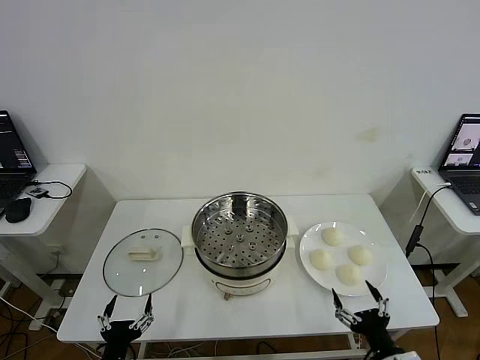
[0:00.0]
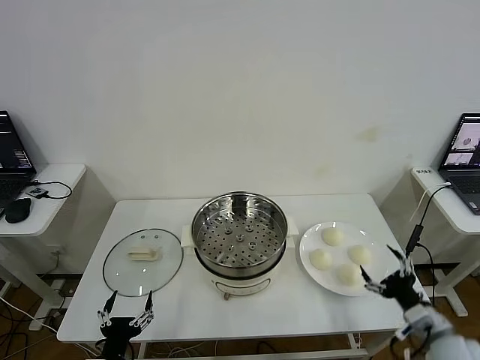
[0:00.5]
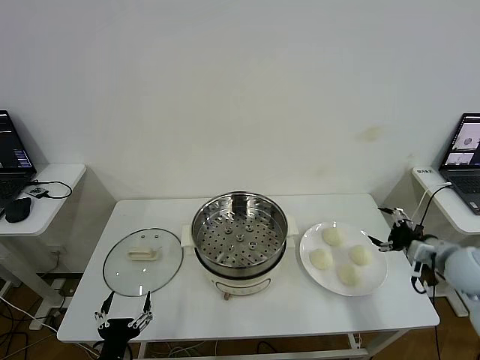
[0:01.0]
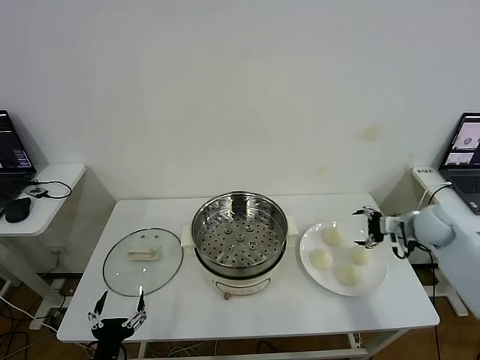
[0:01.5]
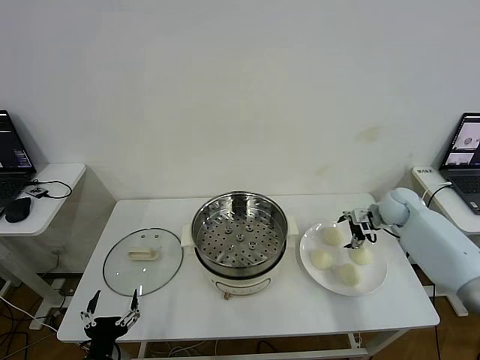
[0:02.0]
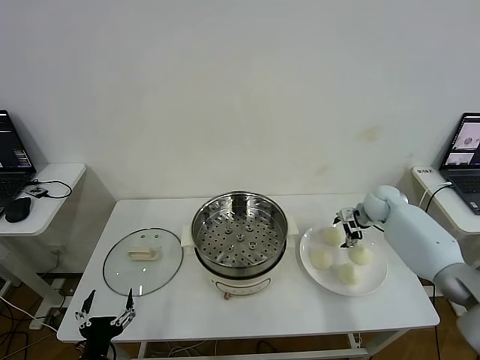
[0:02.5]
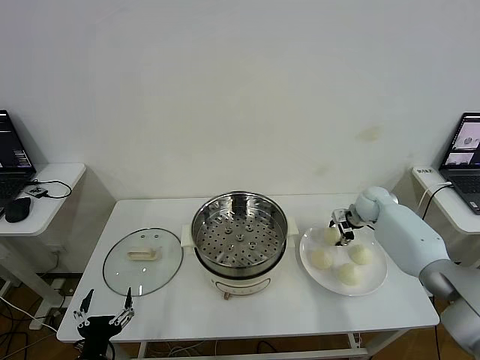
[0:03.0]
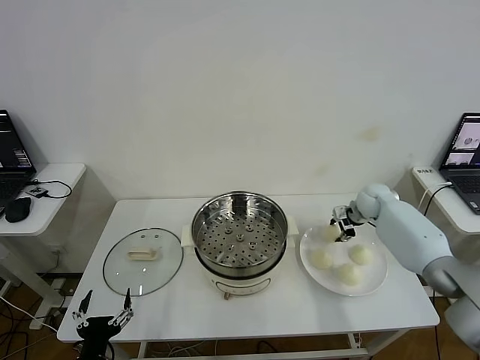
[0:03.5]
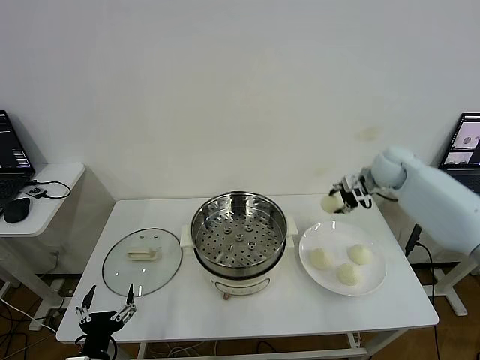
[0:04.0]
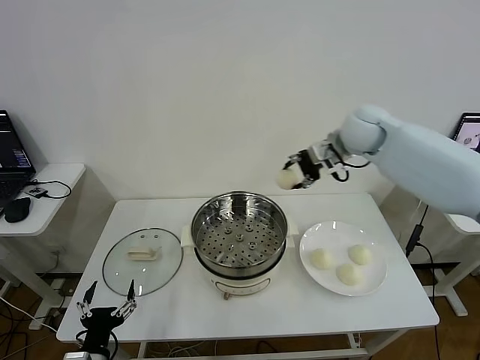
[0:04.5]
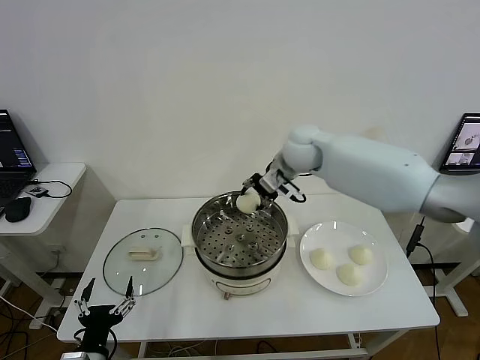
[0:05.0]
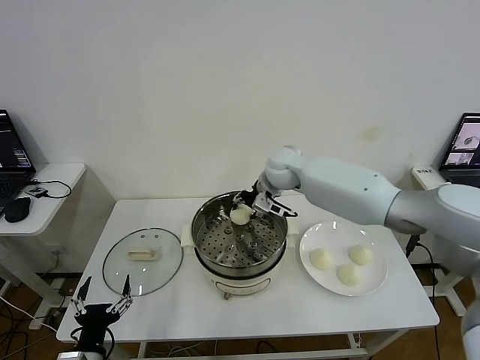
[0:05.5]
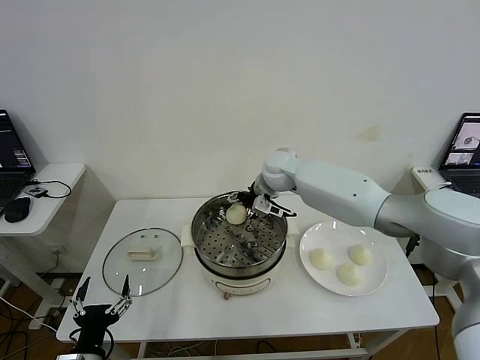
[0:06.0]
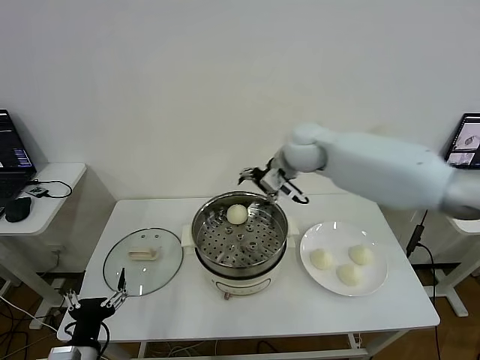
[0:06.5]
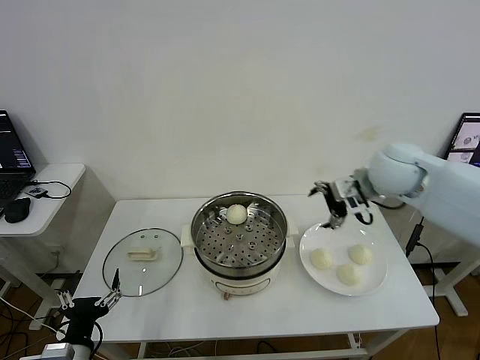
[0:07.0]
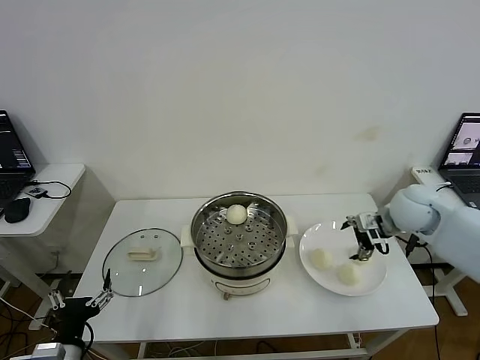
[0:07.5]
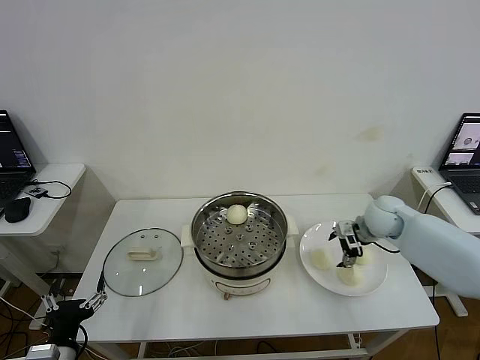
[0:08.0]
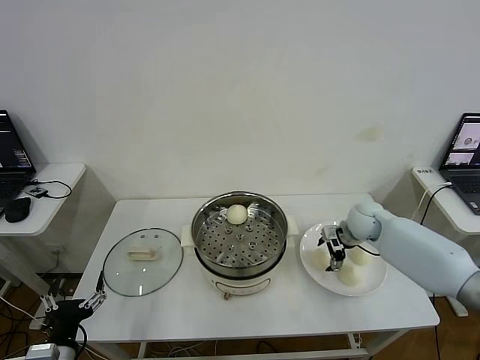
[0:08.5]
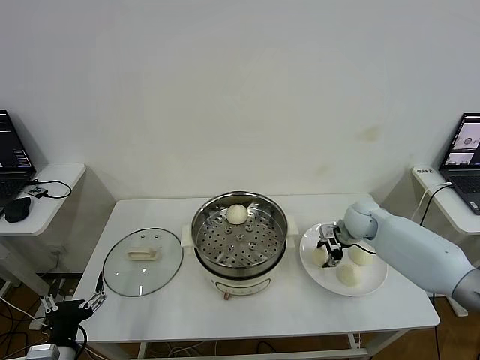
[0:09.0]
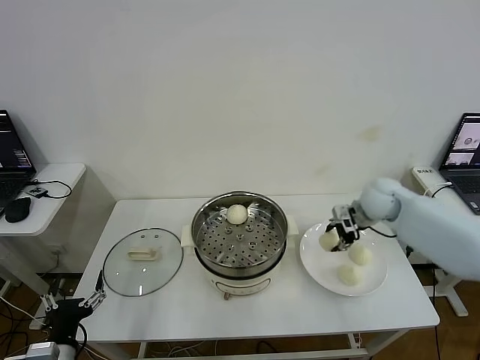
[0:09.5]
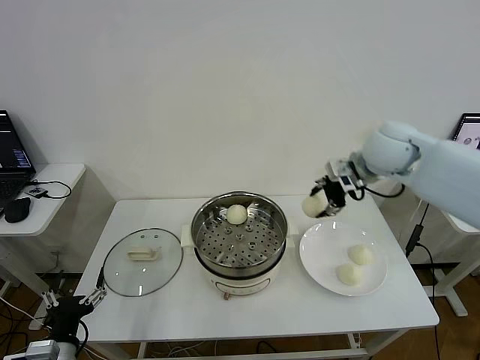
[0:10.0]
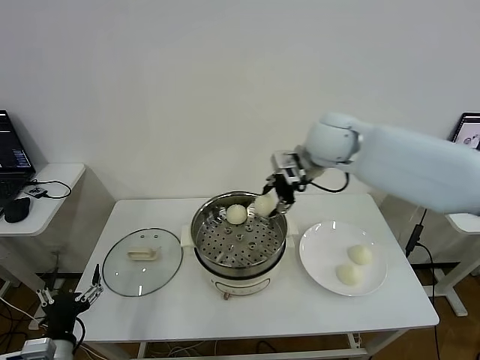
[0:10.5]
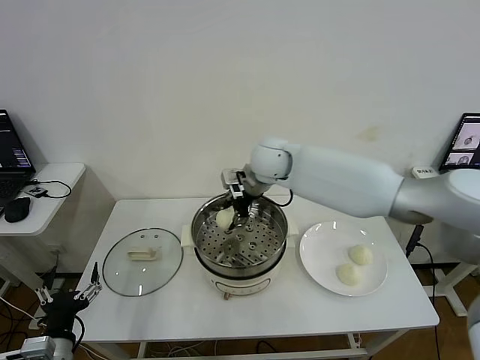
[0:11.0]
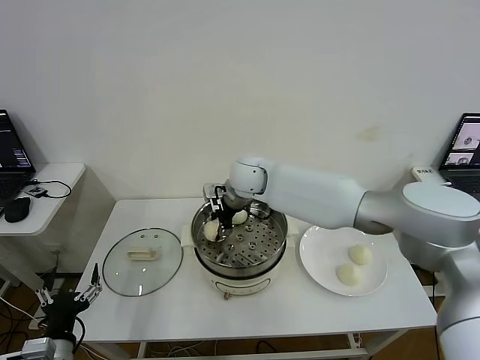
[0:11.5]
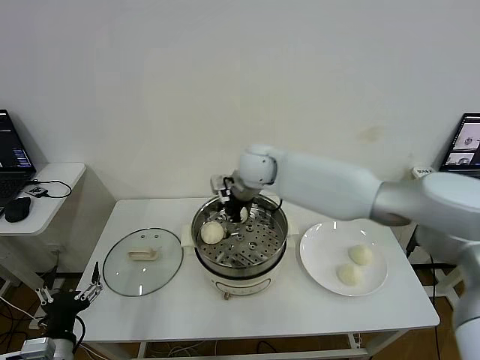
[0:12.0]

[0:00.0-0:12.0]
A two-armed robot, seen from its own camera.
Step, 0:00.0 to 0:03.0: Grasp the baozi in the plate with right gripper.
Step, 0:03.5 to 0:05.5: Place the baozi on the steamer with right gripper.
Step, 0:06.0 to 0:08.5: Grasp the baozi in the plate with right gripper.
Step, 0:09.0 to 0:11.5: Place the baozi on the steamer with right gripper.
0:02.0 to 0:04.0: The right gripper shifts some 15 cm upward, and closes.
0:04.0 to 0:06.0: The right gripper moves to the left, roughly 25 cm, and opens its fingers.
0:06.0 to 0:08.0: The right gripper heads to the right, covering approximately 25 cm.
0:08.0 to 0:10.0: The right gripper moves upward, some 20 cm, and closes.
0:10.0 to 0:12.0: The right gripper moves to the left, some 20 cm, and opens.

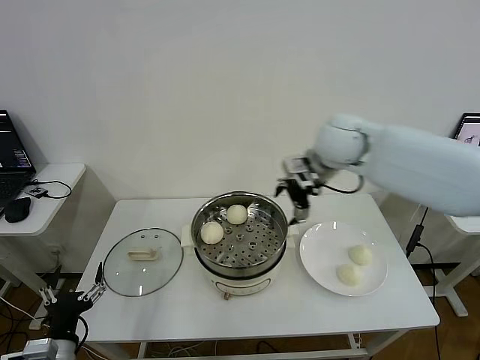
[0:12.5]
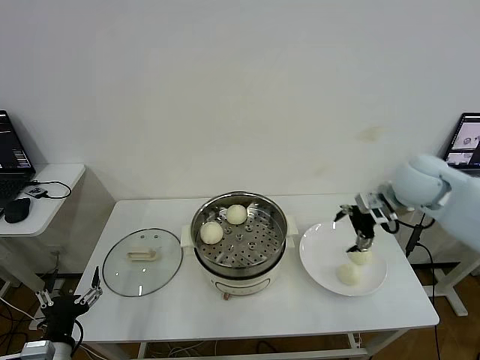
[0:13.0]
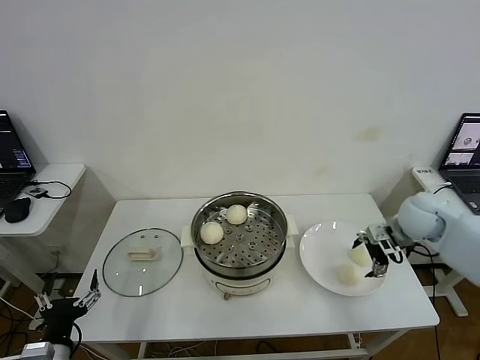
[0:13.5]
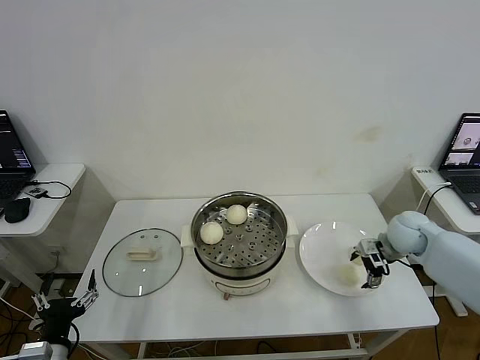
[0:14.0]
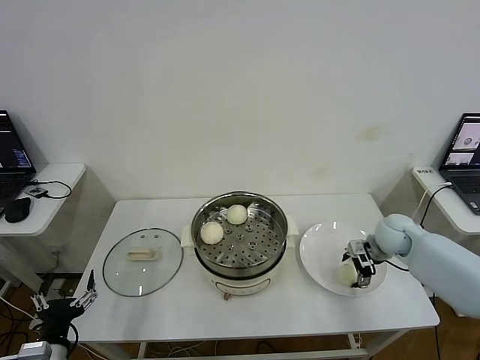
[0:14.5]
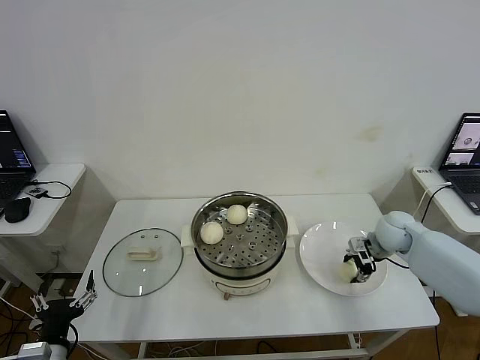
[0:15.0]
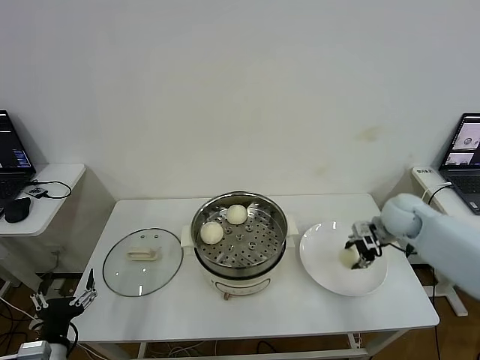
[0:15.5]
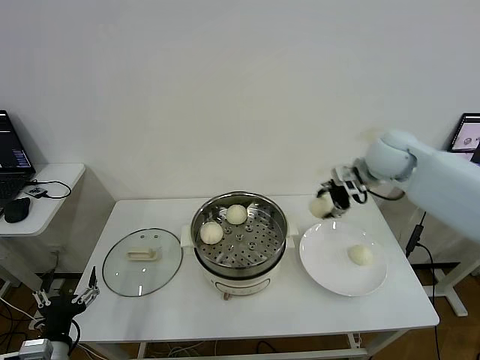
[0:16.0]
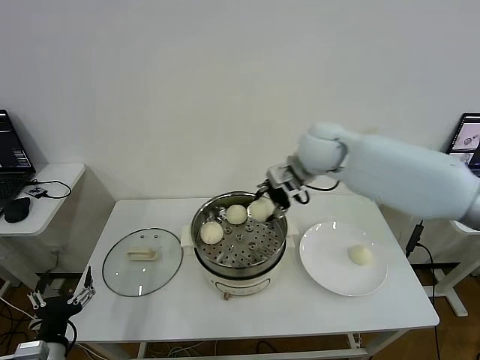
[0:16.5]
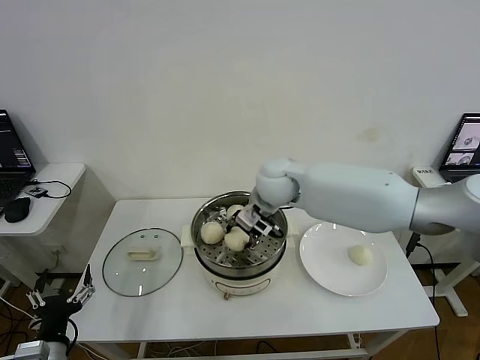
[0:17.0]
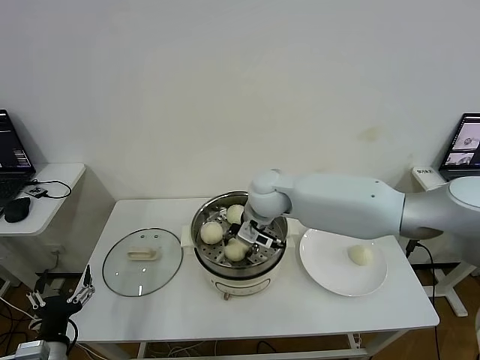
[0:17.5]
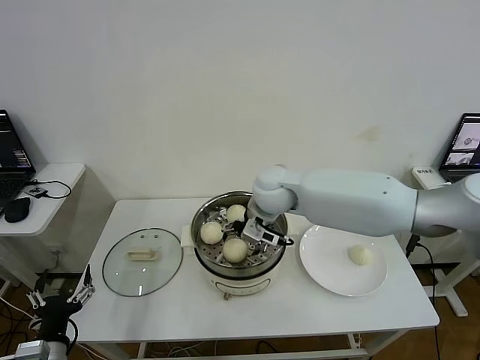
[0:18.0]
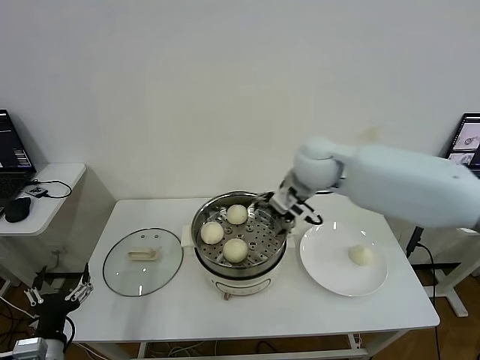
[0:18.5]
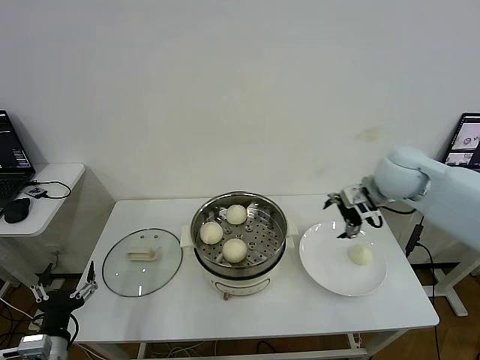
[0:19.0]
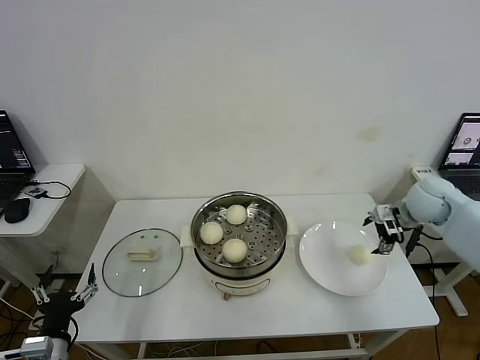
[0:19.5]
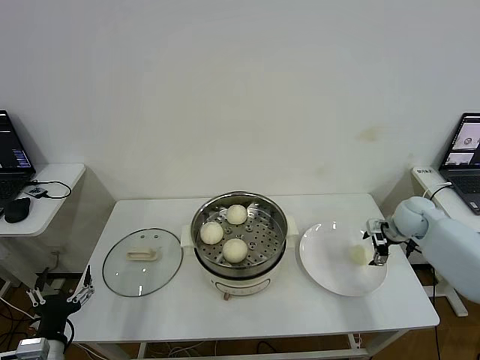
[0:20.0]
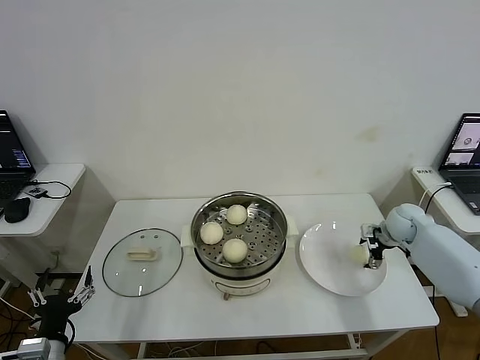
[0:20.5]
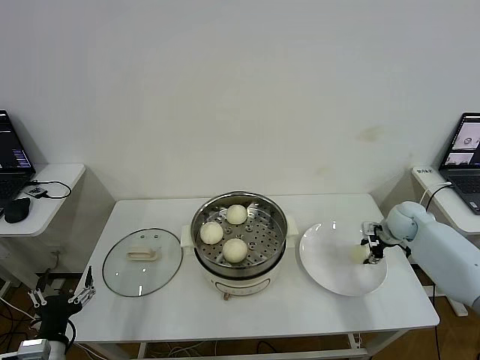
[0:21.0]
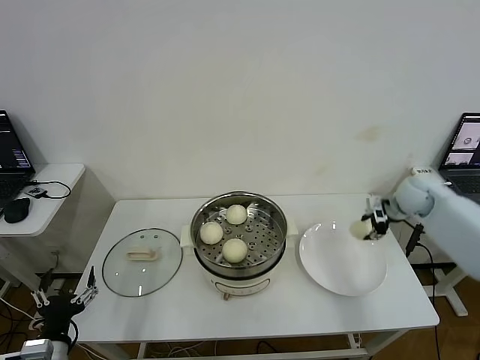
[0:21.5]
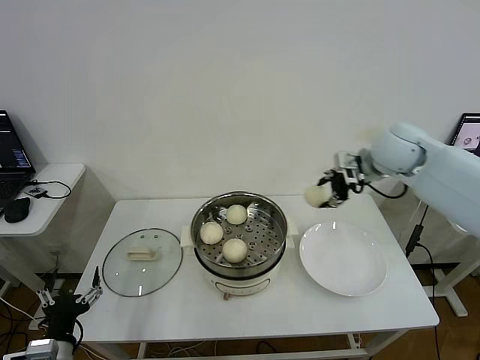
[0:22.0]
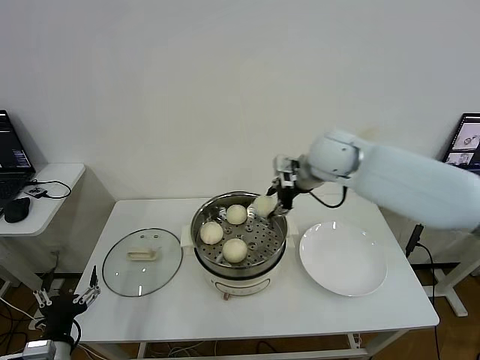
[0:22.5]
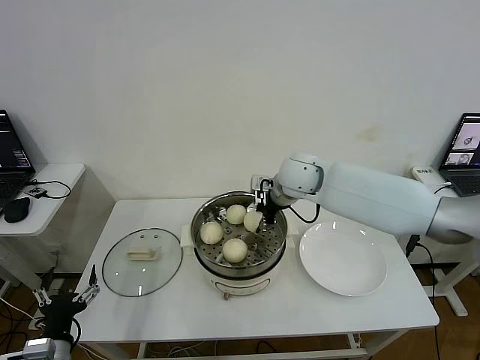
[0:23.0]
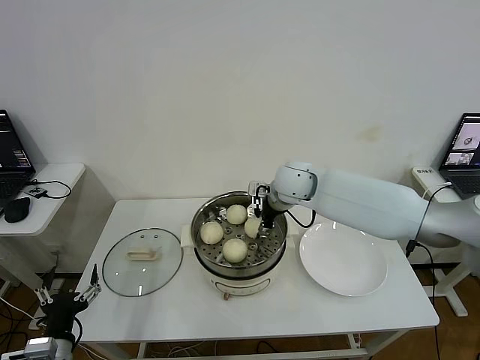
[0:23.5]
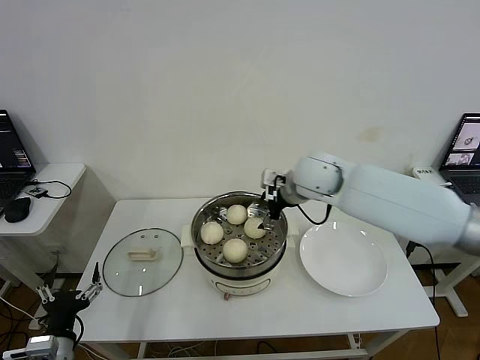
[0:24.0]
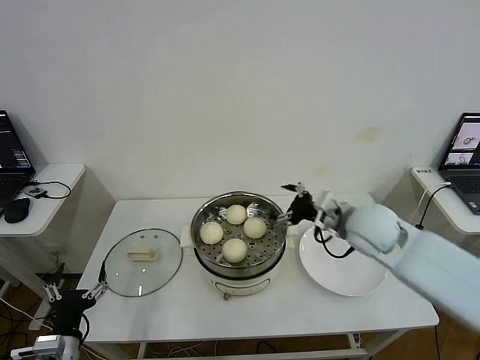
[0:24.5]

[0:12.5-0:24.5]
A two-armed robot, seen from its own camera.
Step, 0:12.5 to 0:14.5: Grasp the baozi in the plate with right gripper.
Step, 0:15.0 to 0:17.5: Place the baozi on the steamer with right gripper.
Step, 0:18.0 to 0:20.5: Grasp the baozi in the plate with right gripper.
Step, 0:21.0 to 0:23.5: Place the baozi on the steamer with right gripper.
0:12.5 to 0:14.5: The right gripper goes some 30 cm downward and to the right.
0:14.5 to 0:16.5: The right gripper travels to the left and upward by approximately 35 cm, and closes its fingers.
0:16.5 to 0:18.5: The right gripper travels to the left and back again, about 10 cm each way, and opens up.
0:18.5 to 0:20.5: The right gripper goes approximately 35 cm to the right and downward.
0:20.5 to 0:22.5: The right gripper shifts approximately 35 cm to the left and upward, and closes.
0:22.5 to 0:24.5: The right gripper shifts roughly 15 cm backward, downward and to the right, and opens.

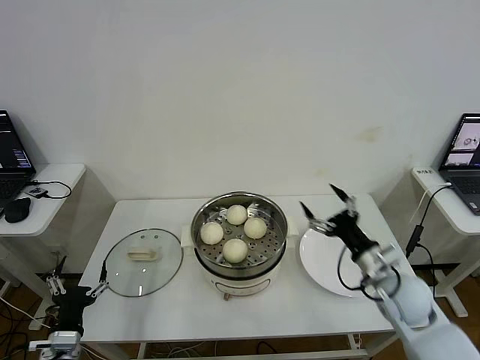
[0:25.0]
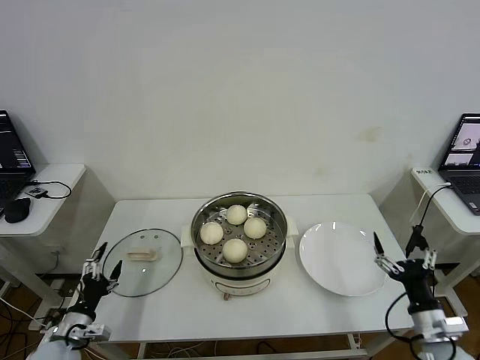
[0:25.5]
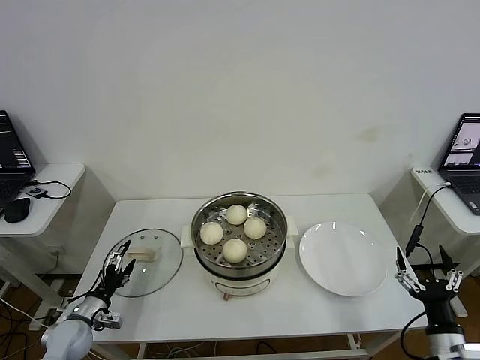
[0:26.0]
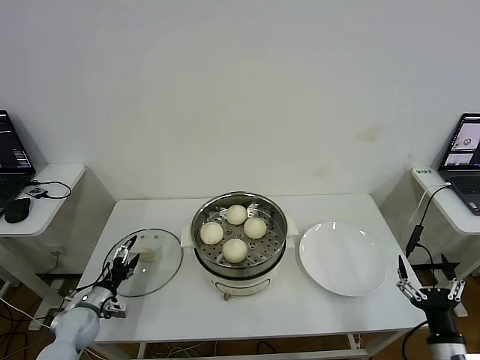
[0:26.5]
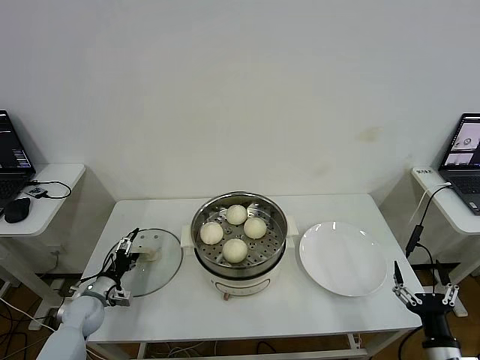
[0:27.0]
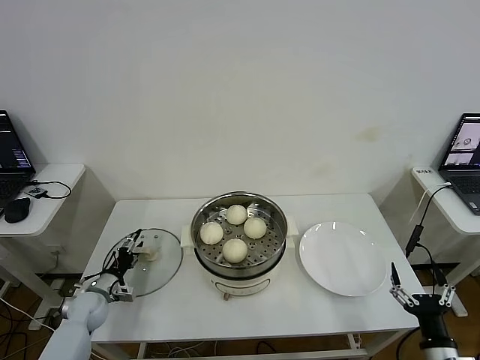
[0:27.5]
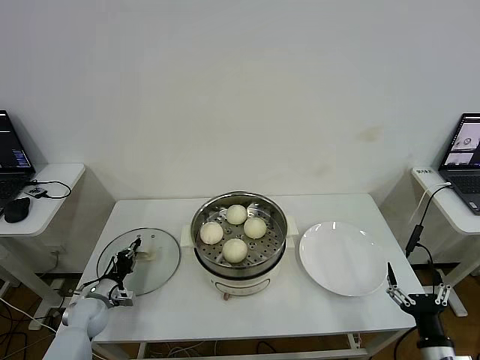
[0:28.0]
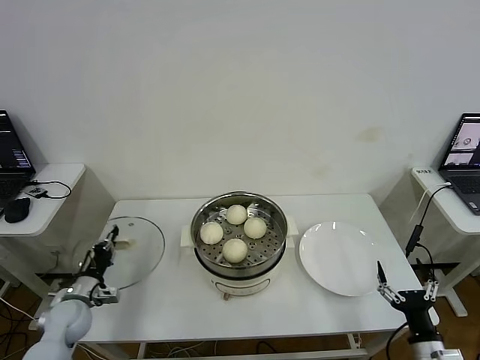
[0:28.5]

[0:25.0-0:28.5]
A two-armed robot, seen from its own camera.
Step, 0:25.0 to 0:27.5: Grasp the pot lid with left gripper.
0:25.0 to 0:27.0: The right gripper shifts about 20 cm backward, downward and to the right. The left gripper travels forward and downward by some 20 cm.
0:27.0 to 0:28.5: The left gripper closes its fingers.
